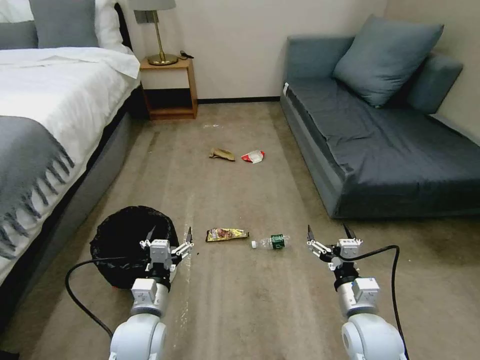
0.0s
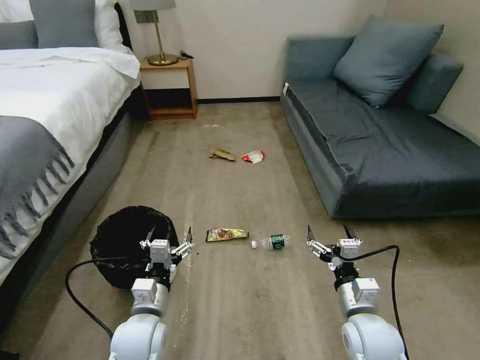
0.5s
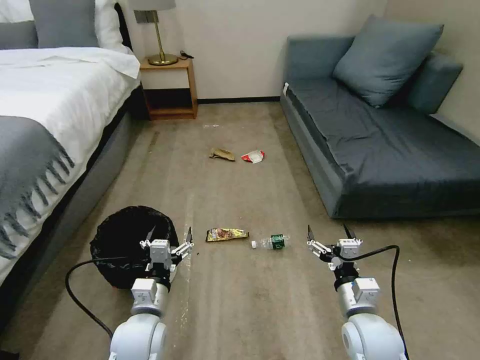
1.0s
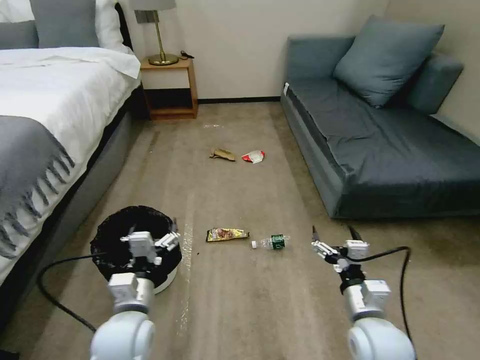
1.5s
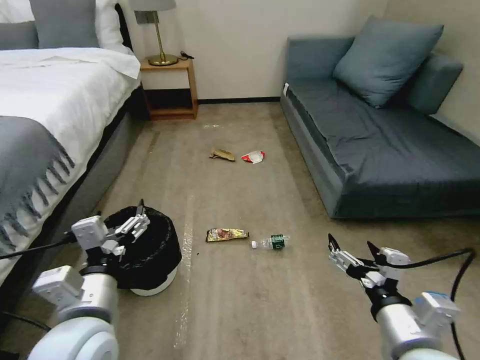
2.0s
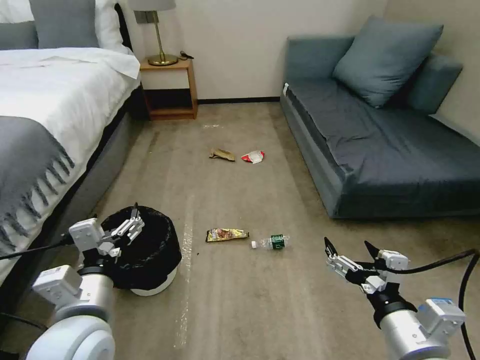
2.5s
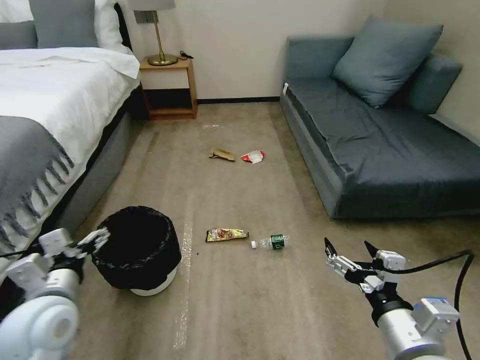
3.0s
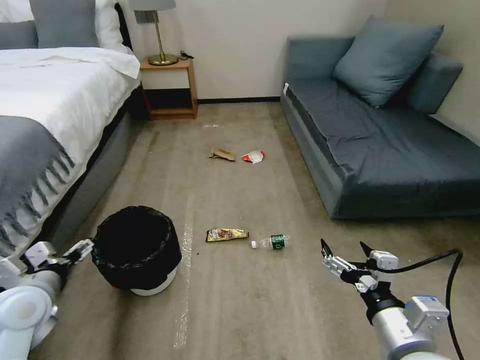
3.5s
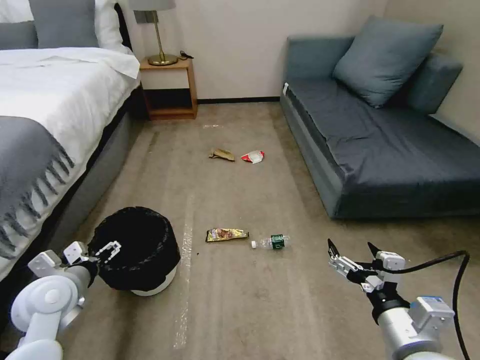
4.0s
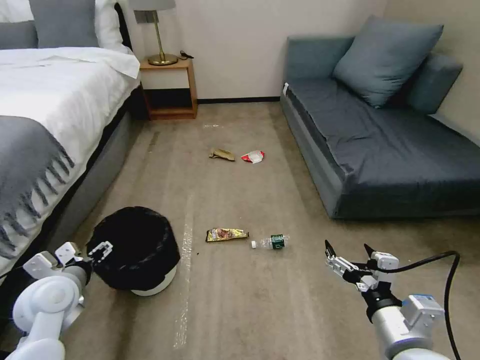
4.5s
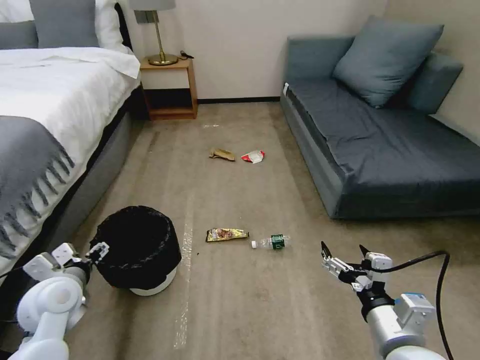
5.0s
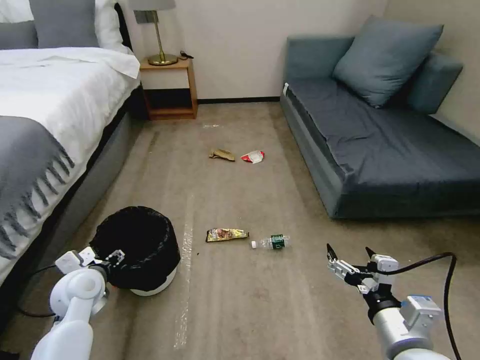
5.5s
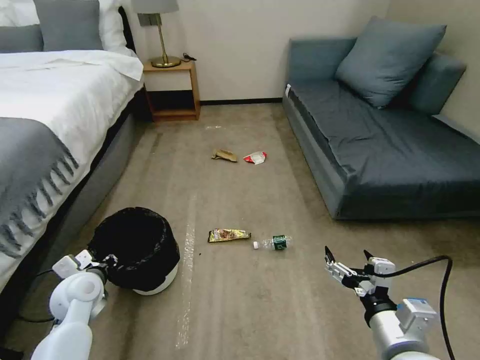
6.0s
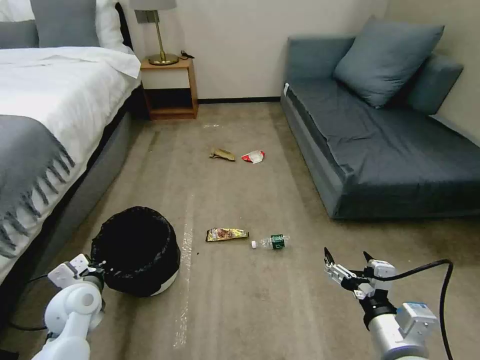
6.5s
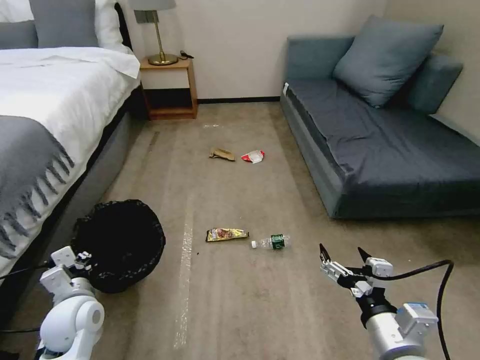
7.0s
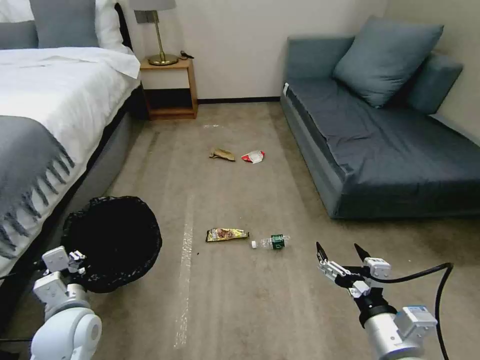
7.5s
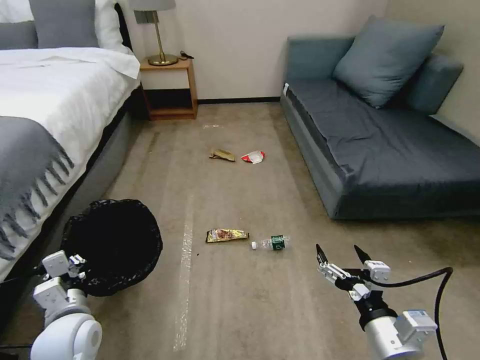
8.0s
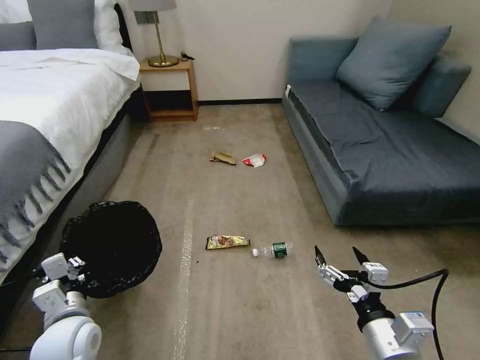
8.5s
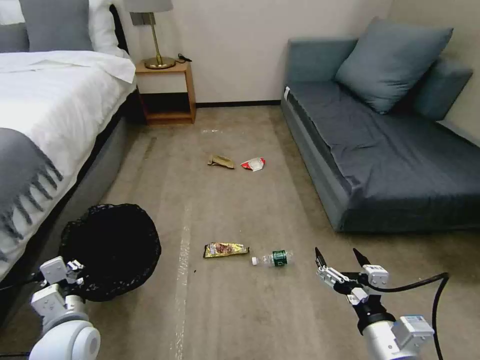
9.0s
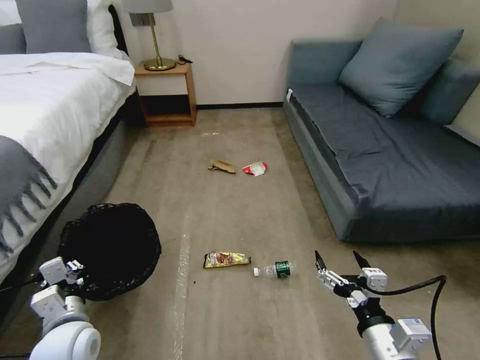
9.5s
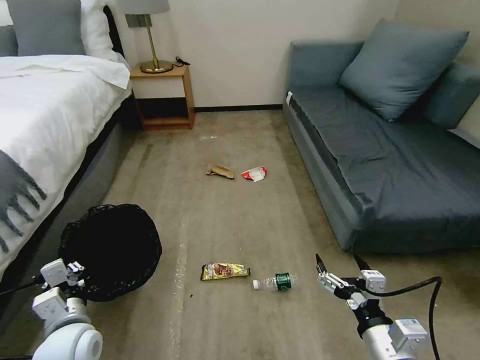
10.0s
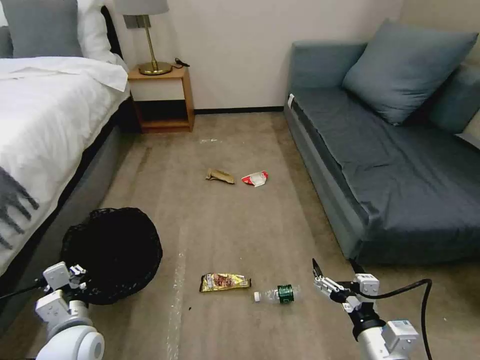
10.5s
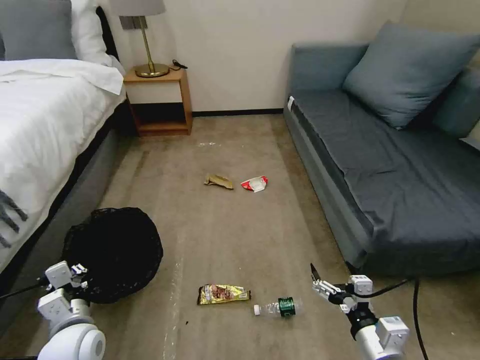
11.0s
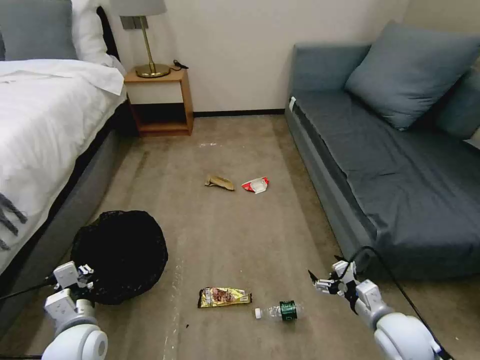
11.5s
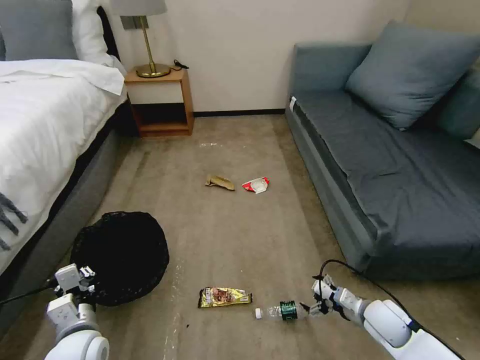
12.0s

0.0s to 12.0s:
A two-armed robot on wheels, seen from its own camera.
Task of the whole recording: Pick up the trash bin, then pick up the garbage on the floor and place it into the trash bin.
2.0s to 4.0s: The left gripper shifts some 20 cm to the left, forward and downward.
4.0s to 6.0s: The left gripper shifts roughly 5 cm downward, and closes.
6.0s to 8.0s: The left gripper moves backward, approximately 10 cm, and closes its fingers.
10.0s to 12.0s: The right gripper moves downward, forward and to the right, some 25 cm.

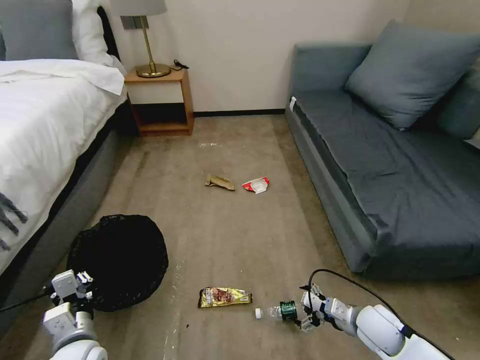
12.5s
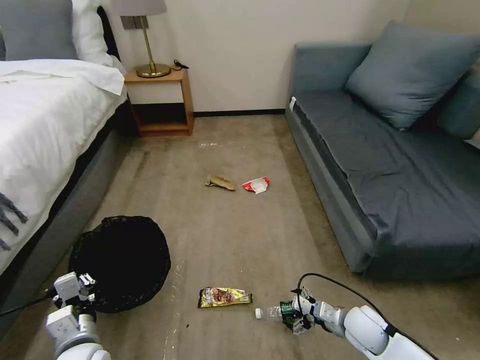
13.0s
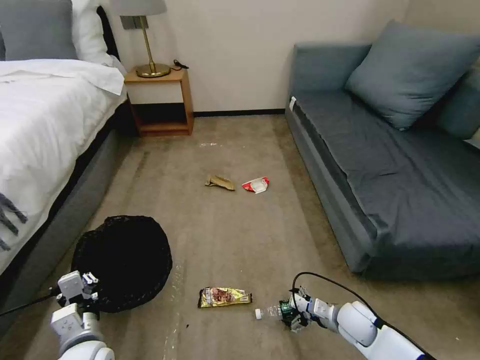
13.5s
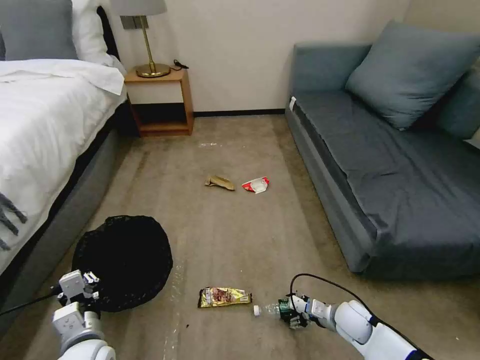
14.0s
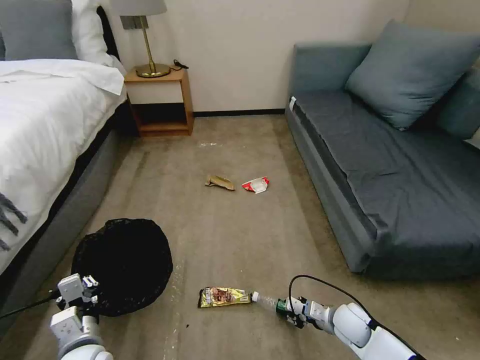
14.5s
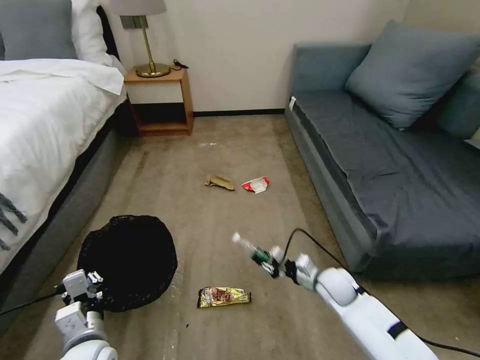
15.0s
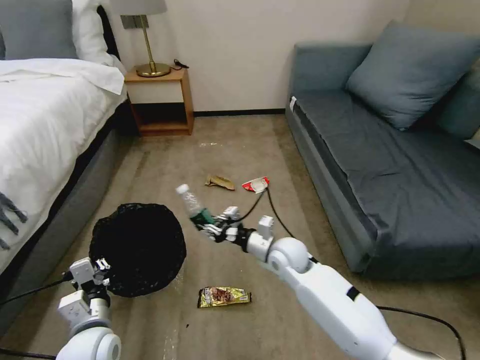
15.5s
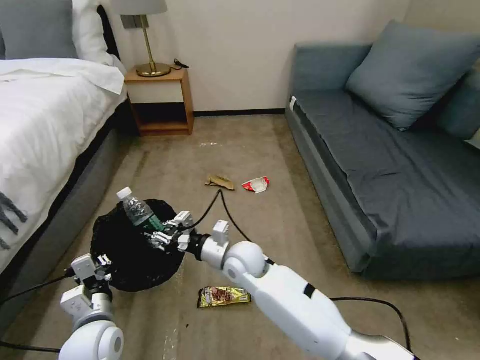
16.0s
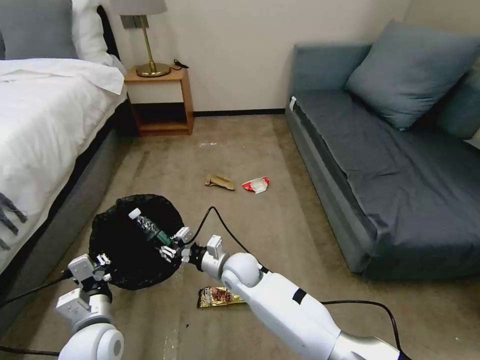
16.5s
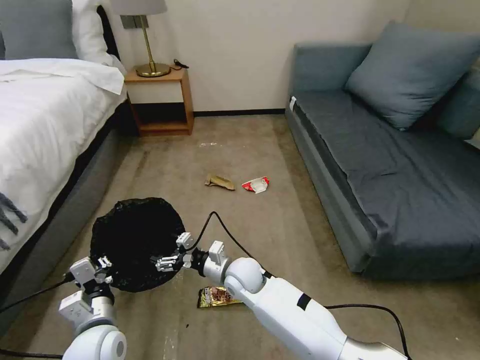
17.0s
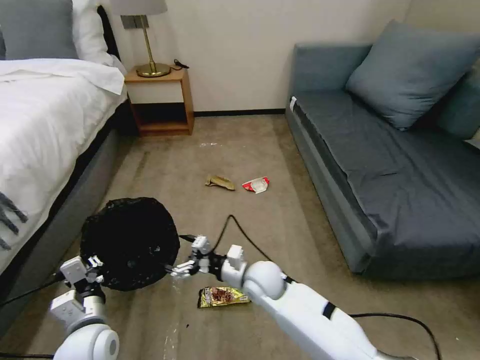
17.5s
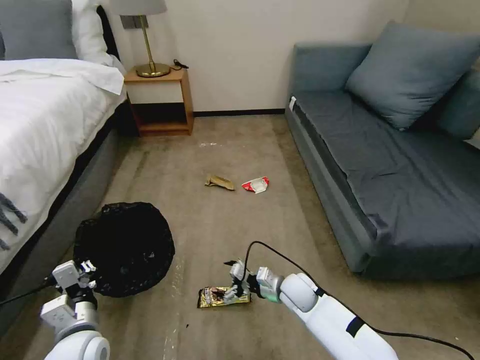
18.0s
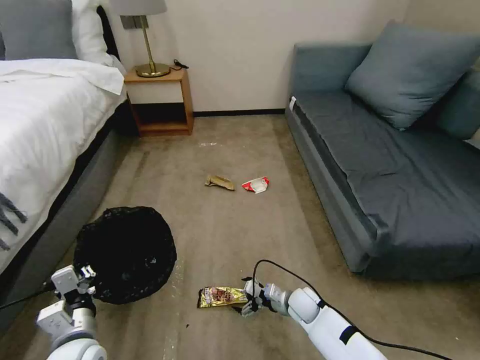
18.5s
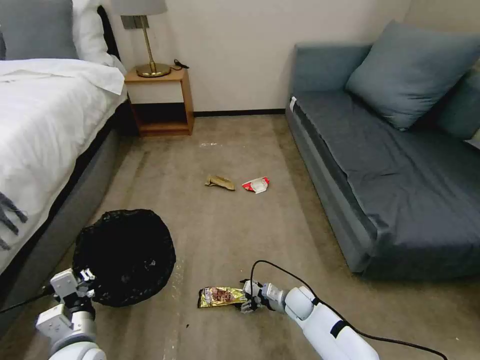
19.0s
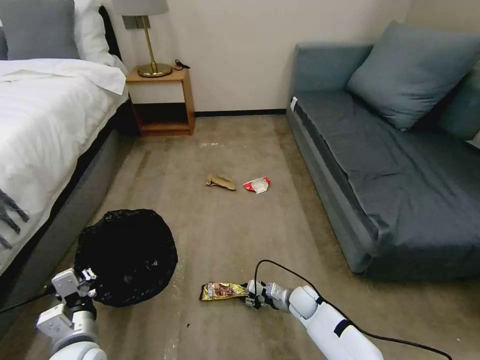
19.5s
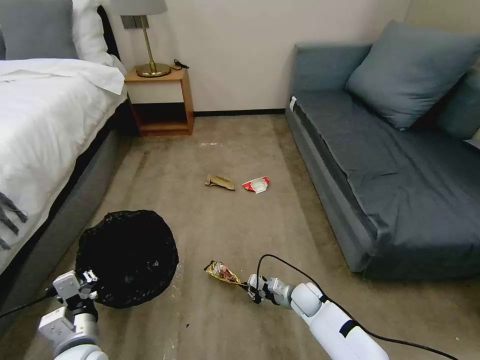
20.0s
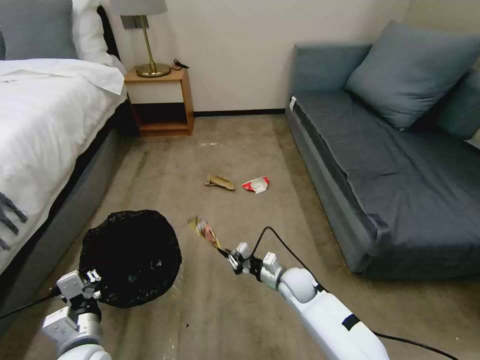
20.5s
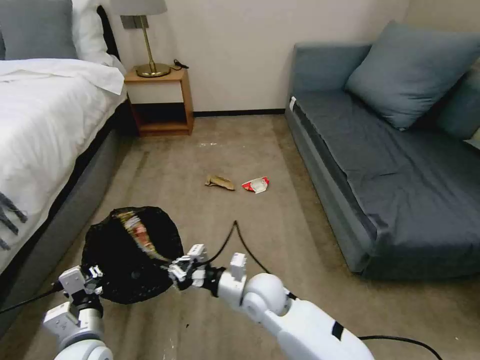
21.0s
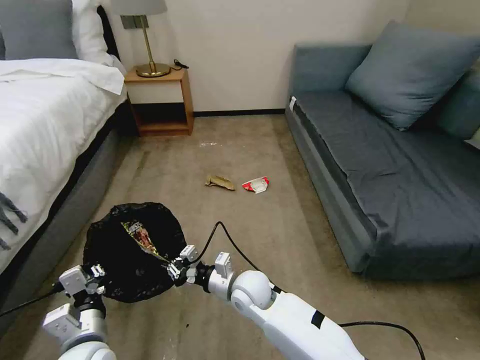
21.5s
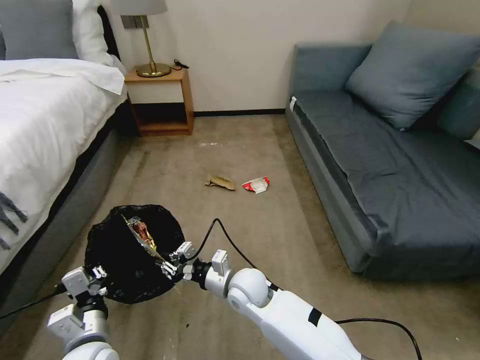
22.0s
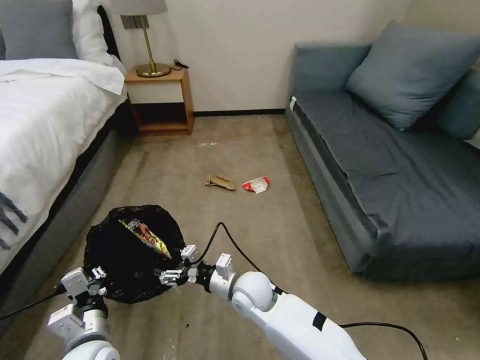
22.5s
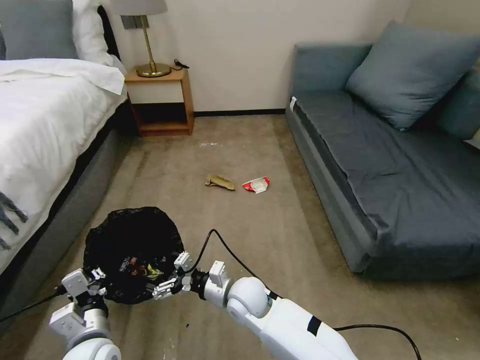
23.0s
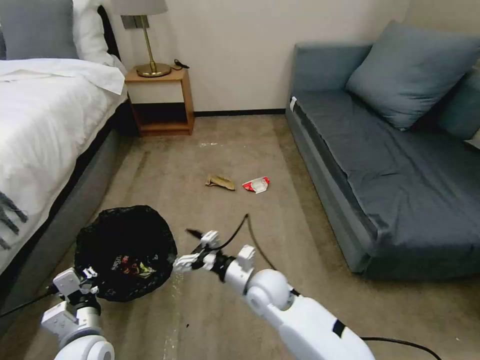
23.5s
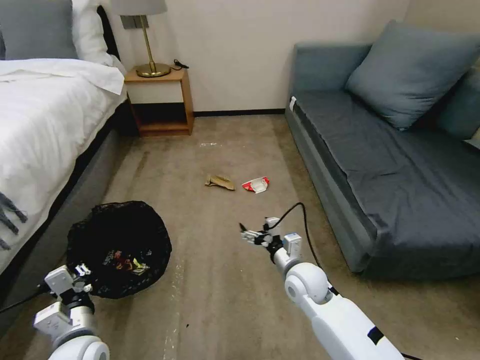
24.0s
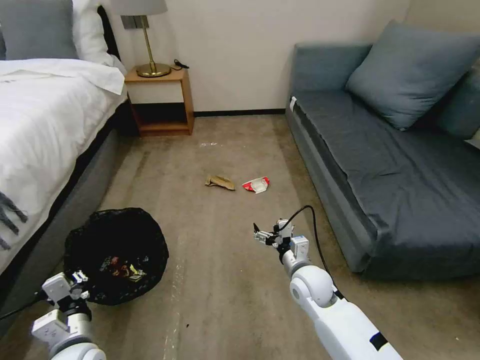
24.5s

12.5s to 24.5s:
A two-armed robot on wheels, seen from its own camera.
Task of the whole recording: Pick up the trash bin, then pick up the garbage on the floor and place it into the trash bin.
12.5s to 14.5s: The right gripper moves downward, about 5 cm, and closes.
14.5s to 16.5s: The right gripper travels to the left by some 30 cm.
16.5s to 18.5s: The right gripper moves to the right and downward, approximately 25 cm, and opens.
18.5s to 20.5s: The right gripper heads upward, covering approximately 10 cm, and closes.
20.5s to 22.5s: The right gripper goes some 15 cm to the left and upward, and opens its fingers.
22.5s to 24.5s: The right gripper shifts approximately 15 cm to the right.

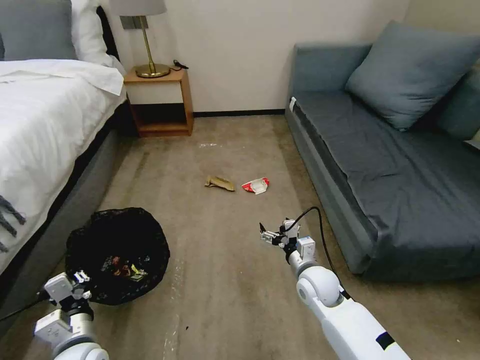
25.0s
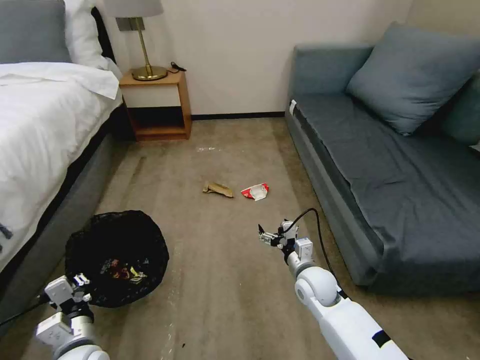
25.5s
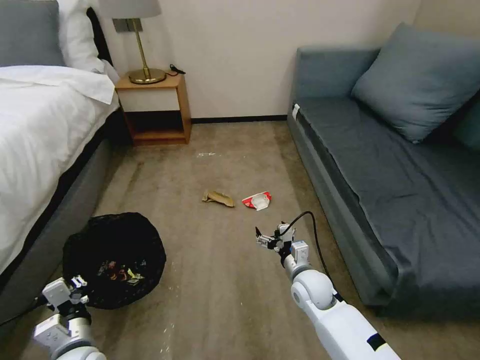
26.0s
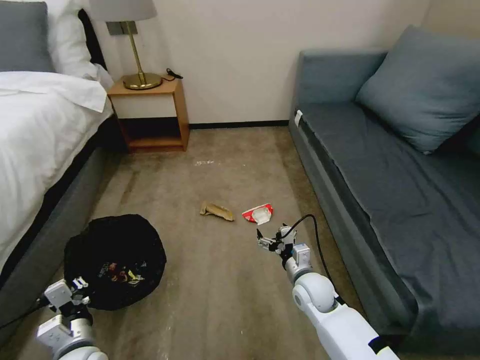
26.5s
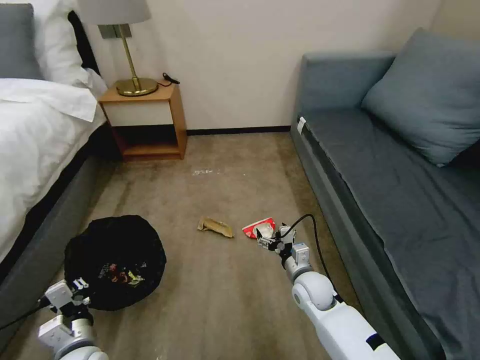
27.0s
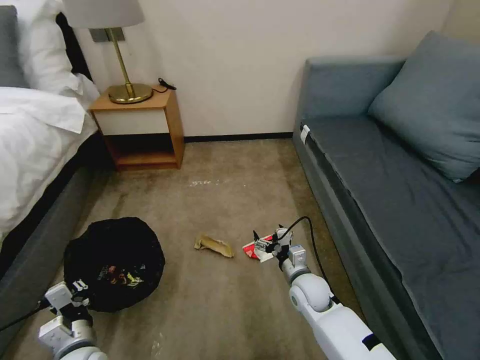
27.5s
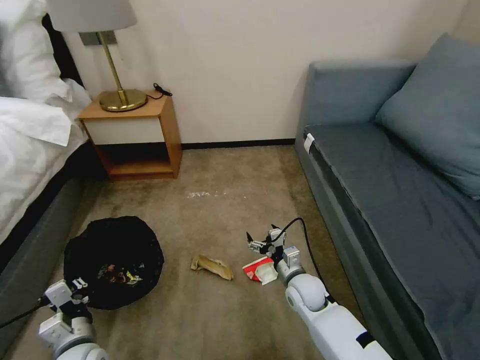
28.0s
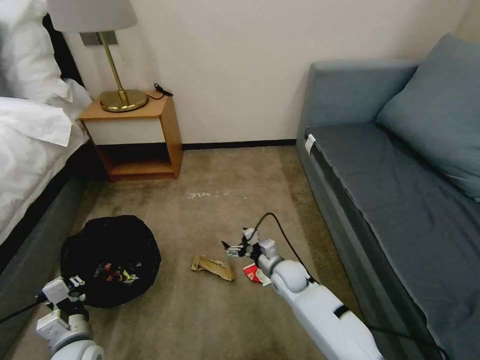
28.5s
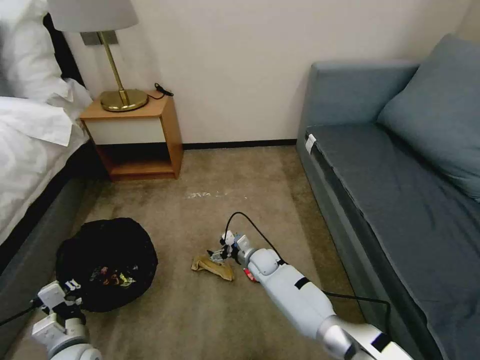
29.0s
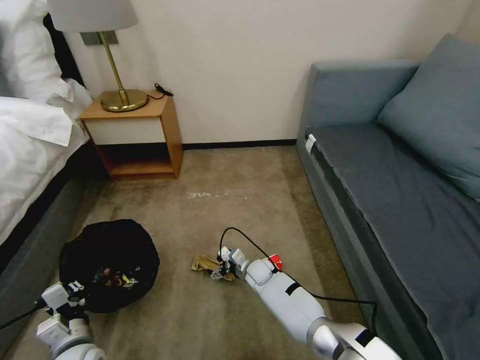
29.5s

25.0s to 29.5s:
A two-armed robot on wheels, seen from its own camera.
Task of the whole recording: Pick up the trash bin, then pick up the garbage on the floor and place it into the trash bin.
27.0s to 29.5s: The right gripper moves to the left, downward and forward, some 20 cm.
